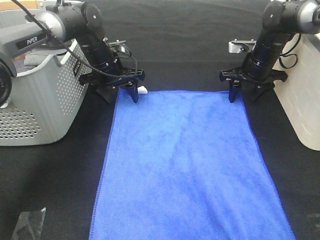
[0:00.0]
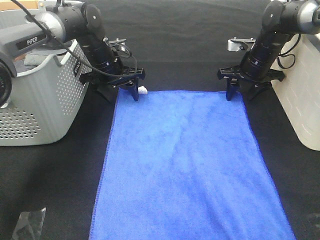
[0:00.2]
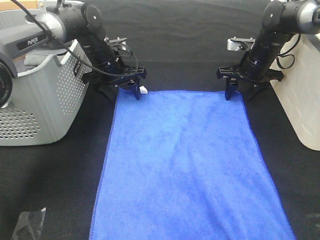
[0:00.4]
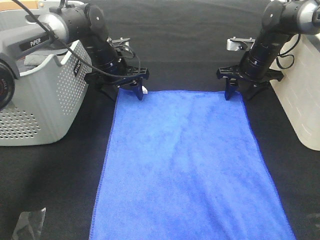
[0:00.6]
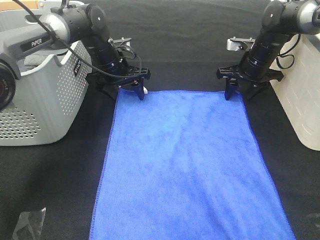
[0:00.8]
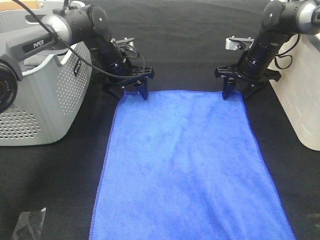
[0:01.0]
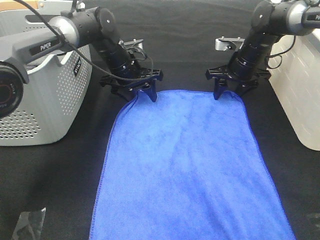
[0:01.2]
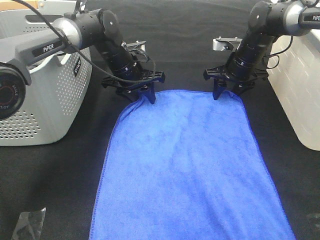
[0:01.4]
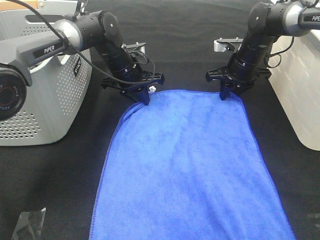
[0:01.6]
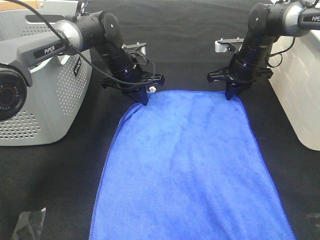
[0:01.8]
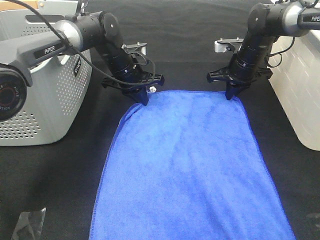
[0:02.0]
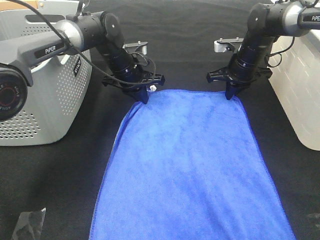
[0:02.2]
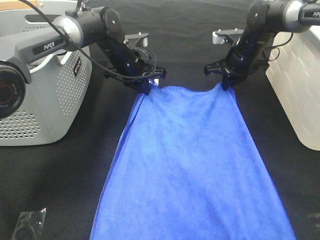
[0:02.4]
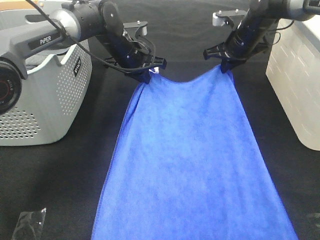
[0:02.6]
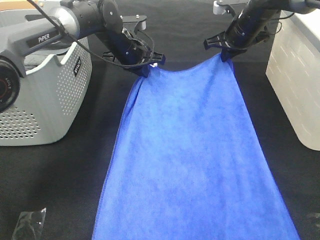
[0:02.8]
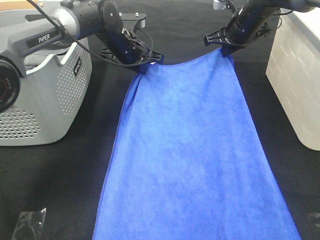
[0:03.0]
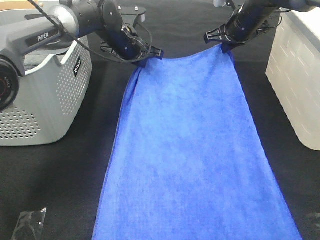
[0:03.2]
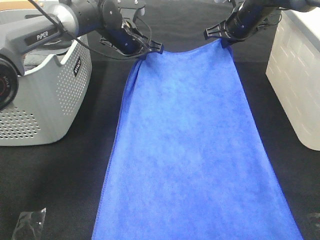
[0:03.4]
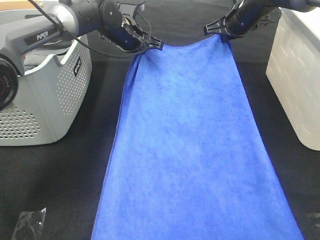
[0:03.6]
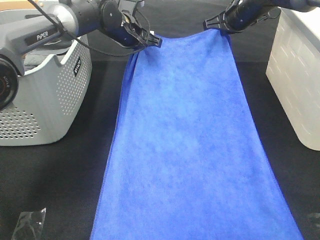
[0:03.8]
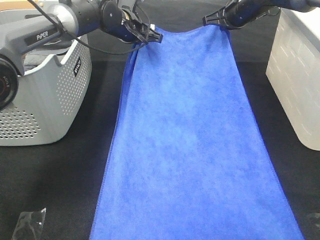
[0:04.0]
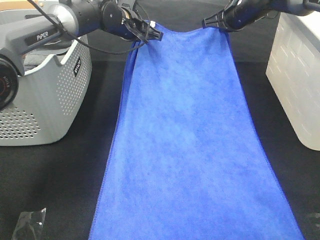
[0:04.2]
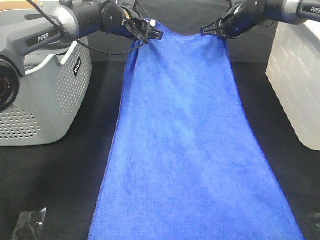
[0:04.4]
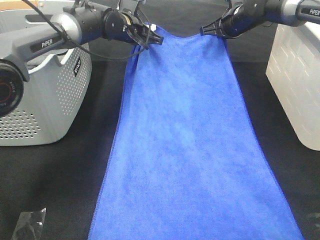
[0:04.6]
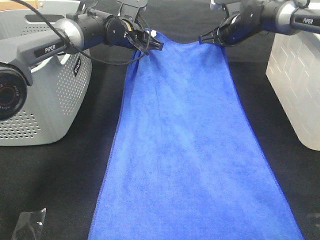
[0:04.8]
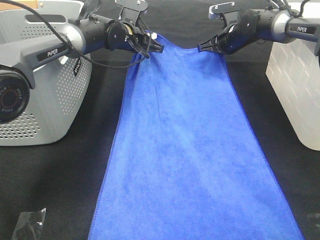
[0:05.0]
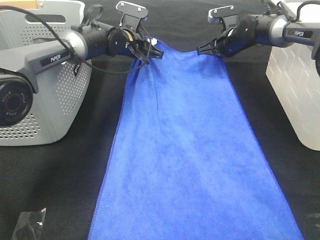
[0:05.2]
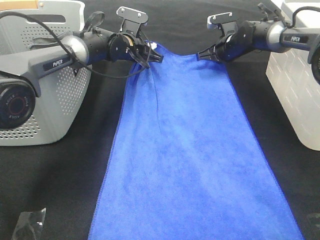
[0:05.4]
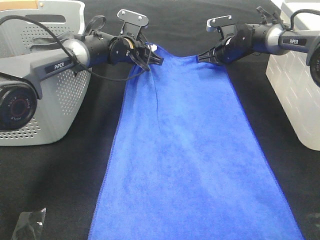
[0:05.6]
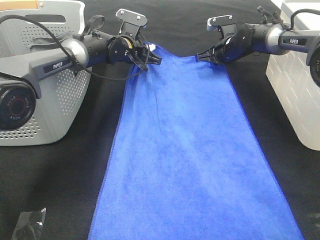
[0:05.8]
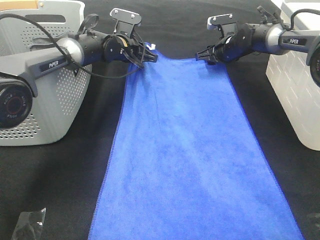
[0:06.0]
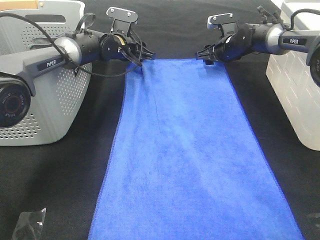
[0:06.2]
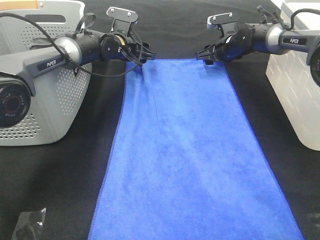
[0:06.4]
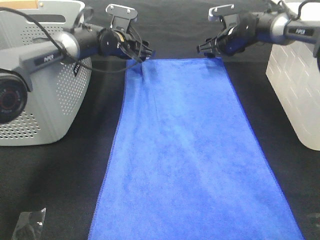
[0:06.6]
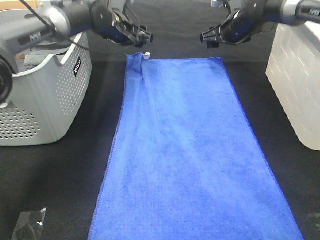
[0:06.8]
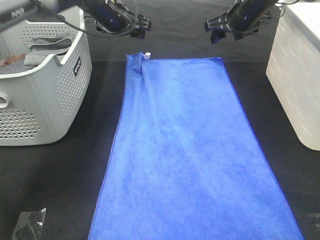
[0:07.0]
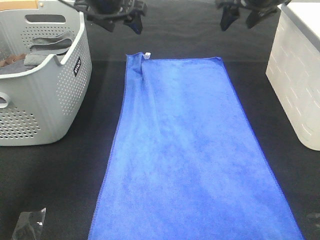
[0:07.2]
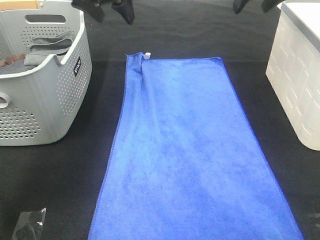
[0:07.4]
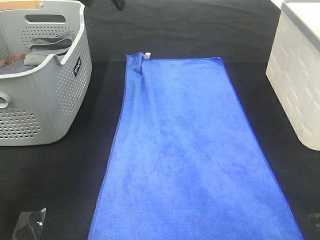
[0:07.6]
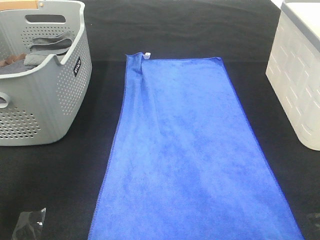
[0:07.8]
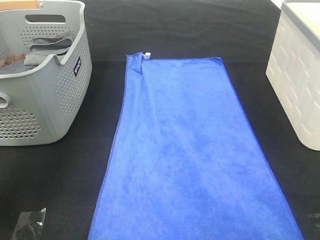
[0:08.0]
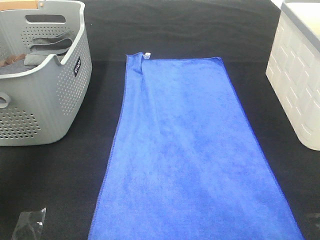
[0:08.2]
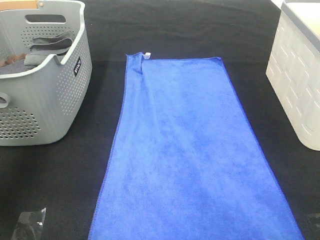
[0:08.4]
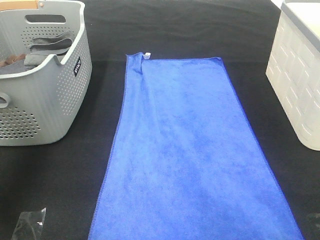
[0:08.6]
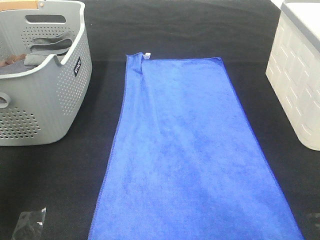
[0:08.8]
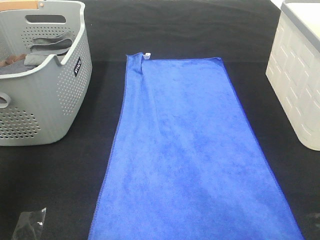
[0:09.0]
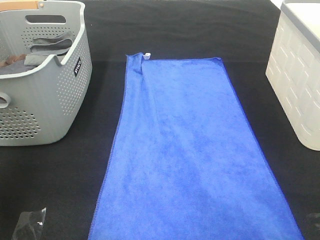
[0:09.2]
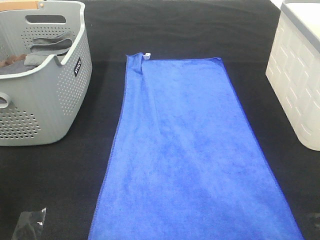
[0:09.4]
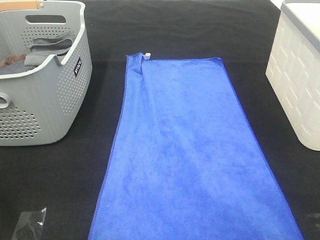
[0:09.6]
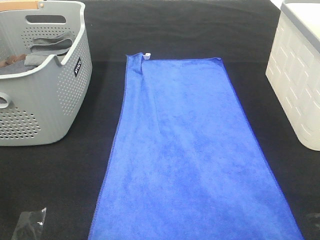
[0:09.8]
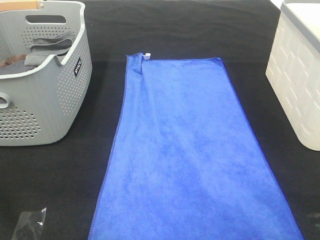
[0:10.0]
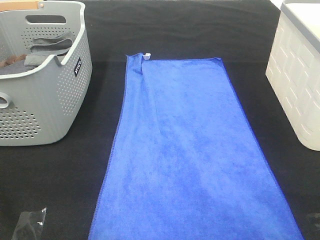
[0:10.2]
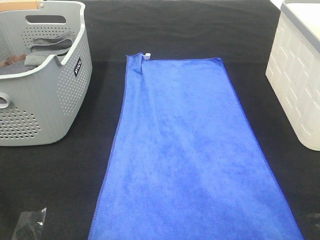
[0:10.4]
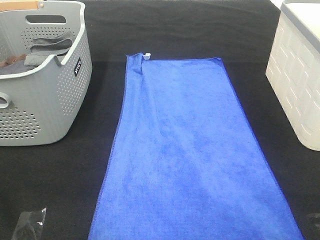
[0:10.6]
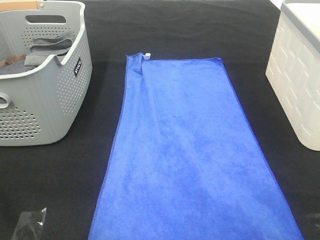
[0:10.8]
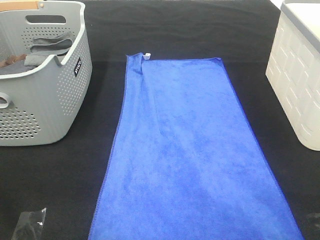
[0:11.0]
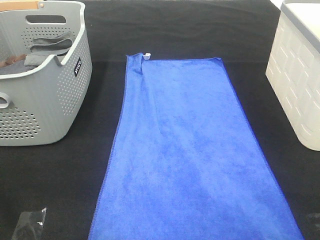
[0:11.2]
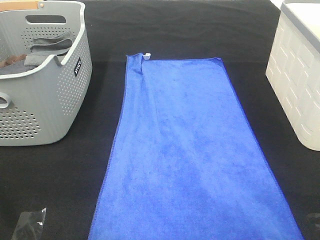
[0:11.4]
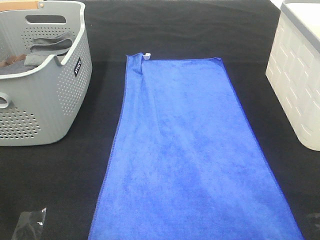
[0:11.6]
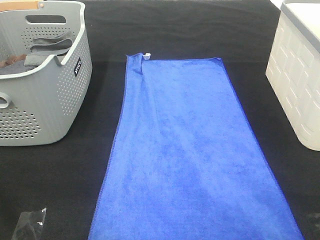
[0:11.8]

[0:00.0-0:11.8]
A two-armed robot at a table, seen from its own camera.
Task of the whole recording: Remove the towel and place it.
0:00.0 to 0:01.4: There are only small adjustments of the grippers.
0:01.4 to 0:03.0: The left gripper closes. The right gripper travels upward by some 10 cm, and closes its fingers.
0:04.4 to 0:06.0: The two grippers go some 5 cm downward. The left gripper opens its fingers. The right gripper opens up.
0:06.0 to 0:07.4: The two grippers go some 25 cm upward and backward.
0:07.4 to 0:08.8: The left gripper shifts approximately 30 cm backward, to the left and upward. Meanwhile the right gripper shifts roughly 25 cm backward.
0:08.8 to 0:10.4: The left gripper is displaced backward and downward by approximately 30 cm.

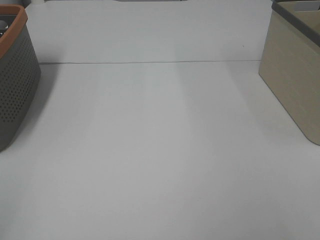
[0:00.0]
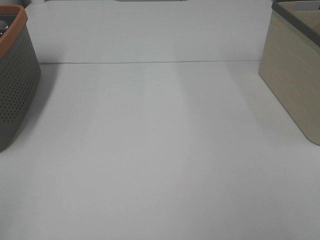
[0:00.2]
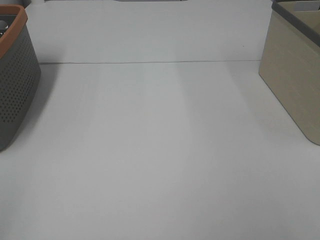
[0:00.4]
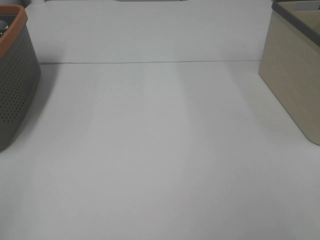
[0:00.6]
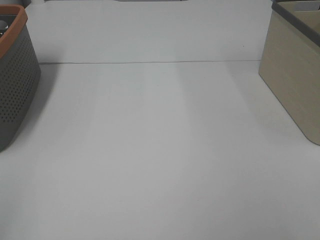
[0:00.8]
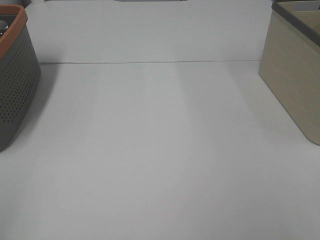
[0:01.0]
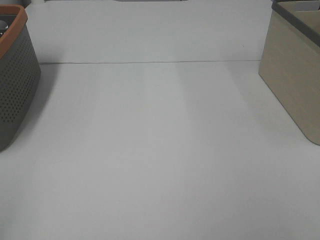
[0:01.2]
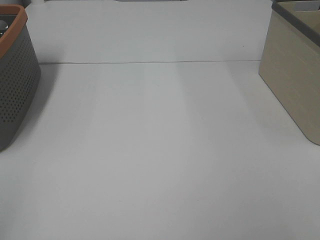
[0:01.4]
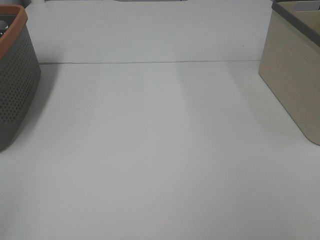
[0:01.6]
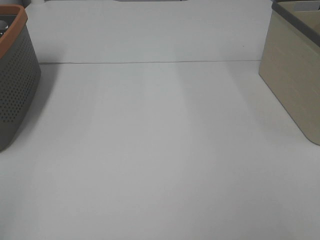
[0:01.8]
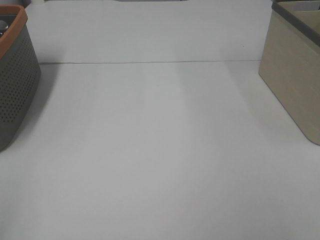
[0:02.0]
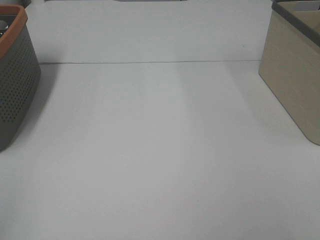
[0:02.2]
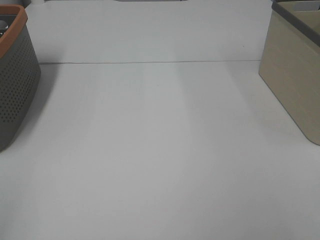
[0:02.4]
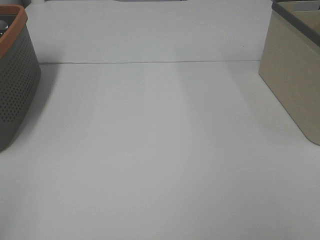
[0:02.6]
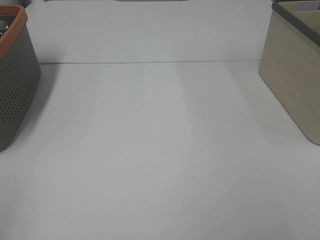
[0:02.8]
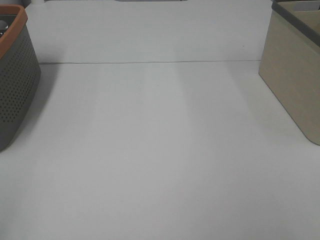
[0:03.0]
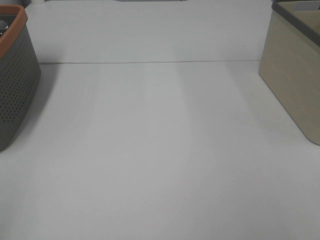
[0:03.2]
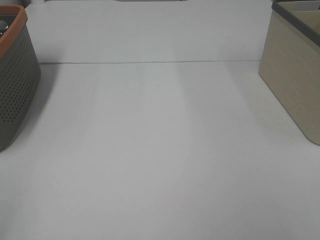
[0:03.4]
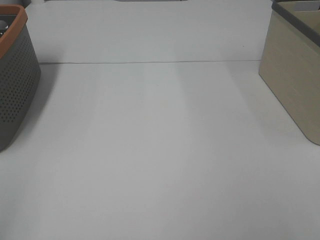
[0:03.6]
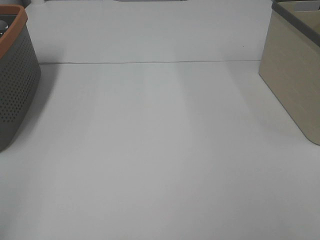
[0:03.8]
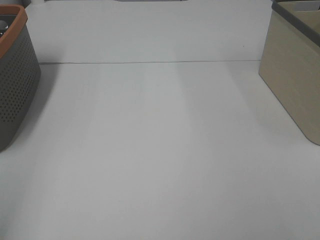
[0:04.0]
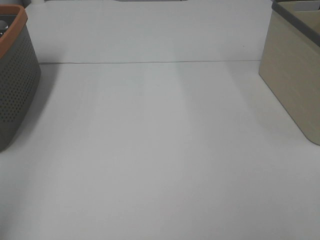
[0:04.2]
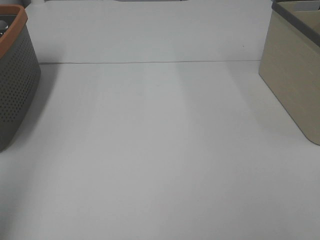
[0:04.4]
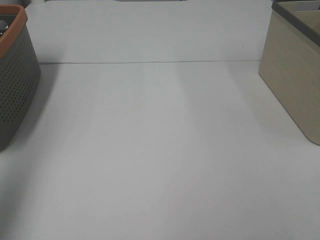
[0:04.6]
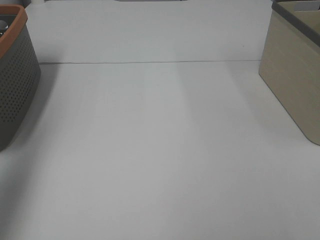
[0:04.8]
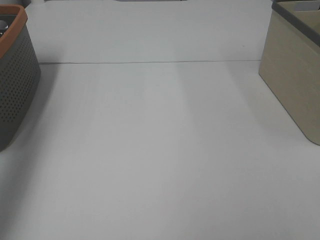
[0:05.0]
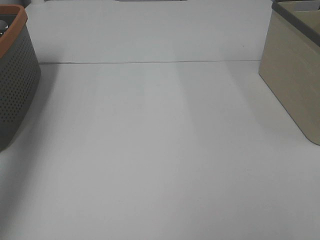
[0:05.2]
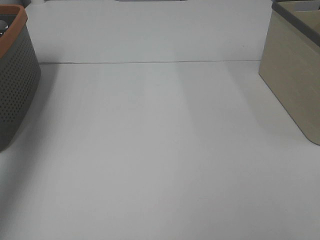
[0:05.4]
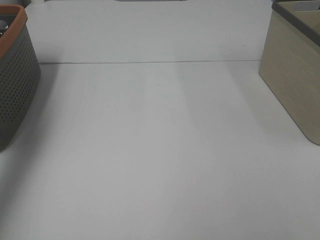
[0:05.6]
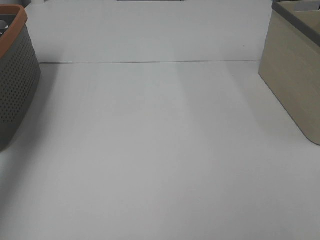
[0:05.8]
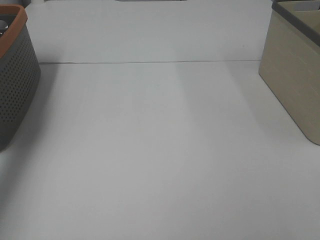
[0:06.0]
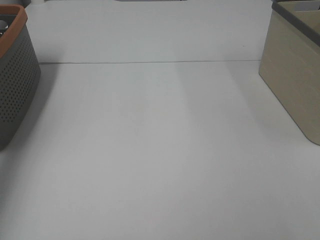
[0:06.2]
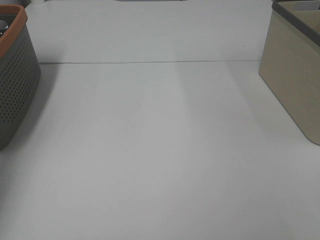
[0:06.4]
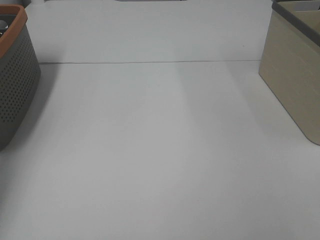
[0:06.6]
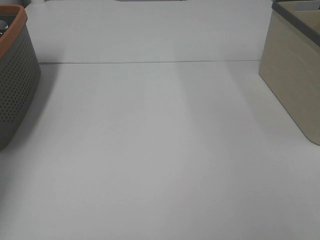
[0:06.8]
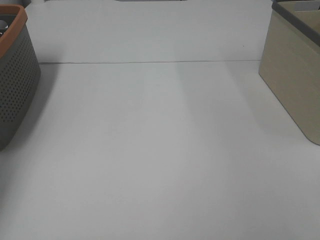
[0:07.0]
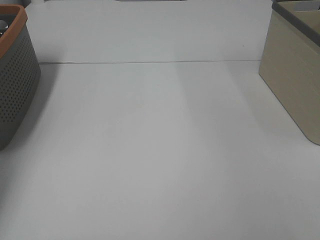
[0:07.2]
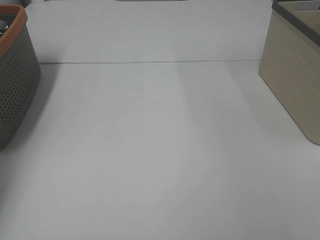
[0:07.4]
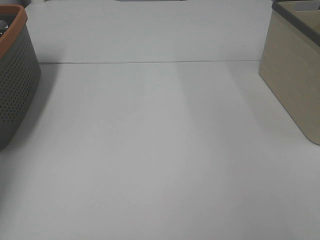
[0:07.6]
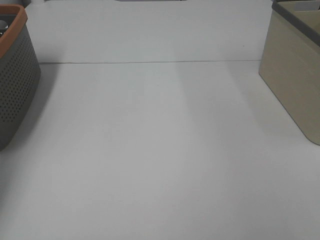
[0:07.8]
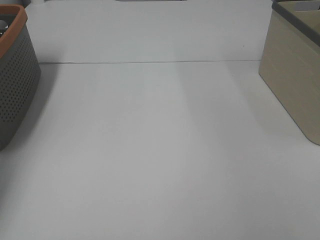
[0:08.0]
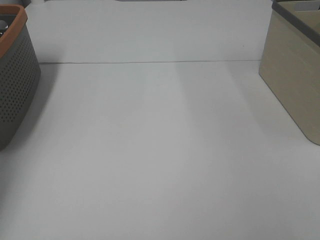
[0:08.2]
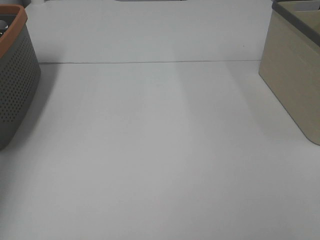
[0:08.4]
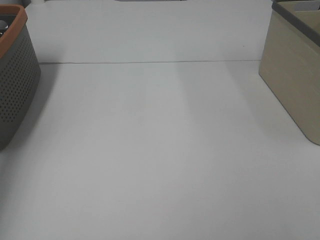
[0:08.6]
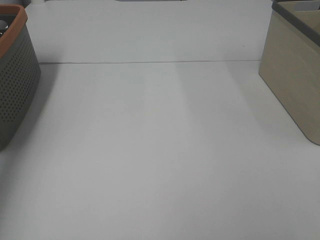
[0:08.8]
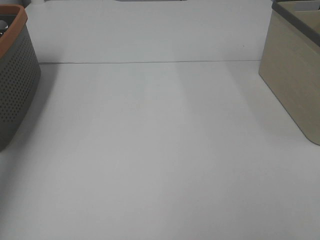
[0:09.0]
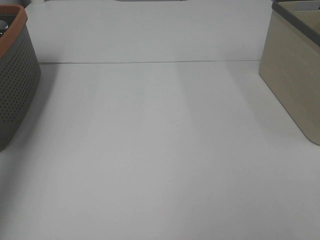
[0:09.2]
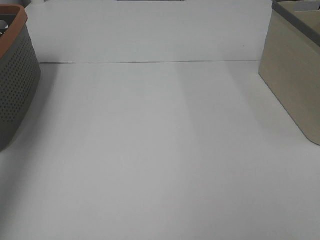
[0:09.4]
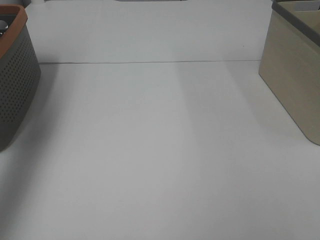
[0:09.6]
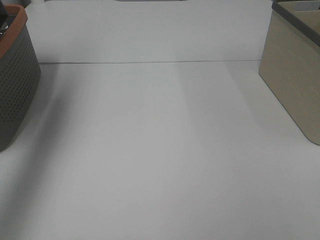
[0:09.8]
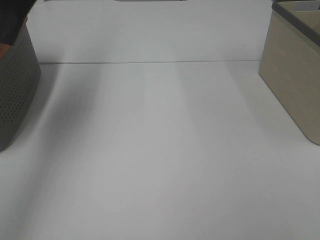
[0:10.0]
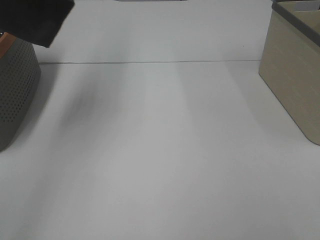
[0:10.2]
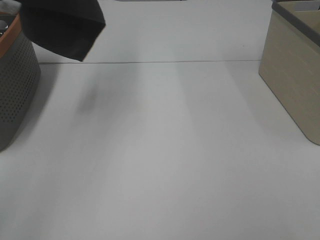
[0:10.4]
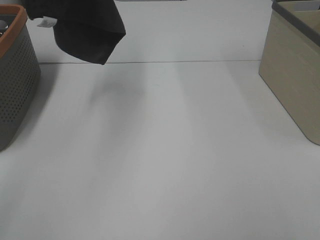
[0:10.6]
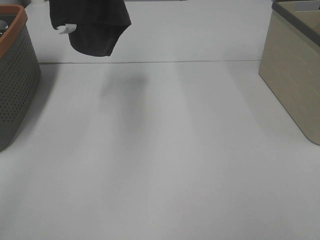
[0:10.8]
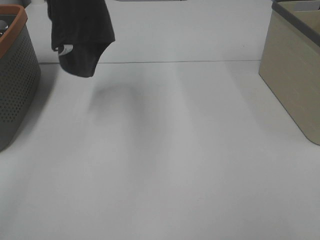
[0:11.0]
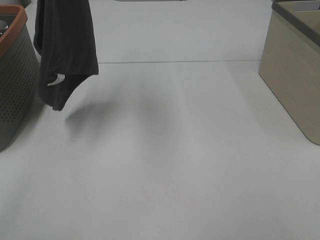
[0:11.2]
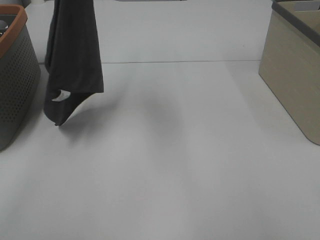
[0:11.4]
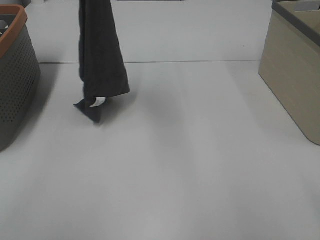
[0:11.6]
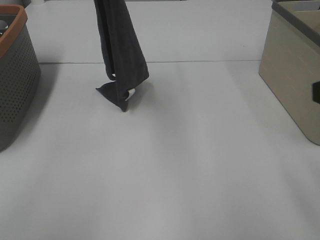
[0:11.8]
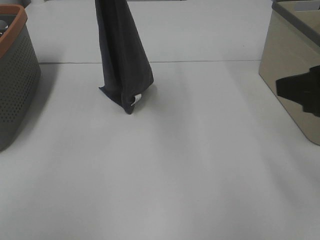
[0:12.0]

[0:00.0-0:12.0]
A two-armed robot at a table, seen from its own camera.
Task of the whole recording: Remove the towel and place it.
0:00.0 to 0:03.0: Neither gripper changes place.
0:03.0 to 0:04.4: The left gripper moves forward and upward, roughly 15 cm.
0:04.4 to 0:06.0: The left gripper moves forward, roughly 30 cm.
0:06.0 to 0:07.6: The left gripper travels downward by about 10 cm, and closes its fingers.
0:09.0 to 0:10.4: The left gripper heads to the right and upward, covering about 25 cm.
0:10.4 to 0:12.0: The right gripper moves forward, approximately 20 cm, while the left gripper moves downward and to the right, about 20 cm.
